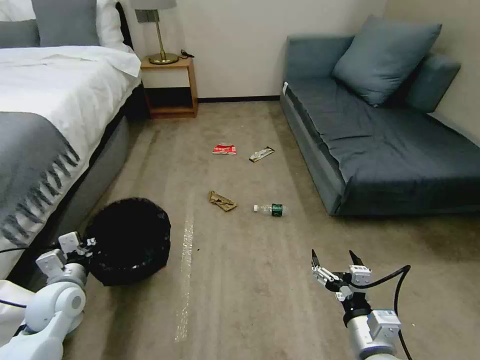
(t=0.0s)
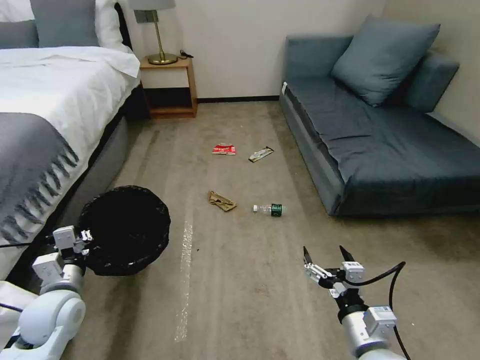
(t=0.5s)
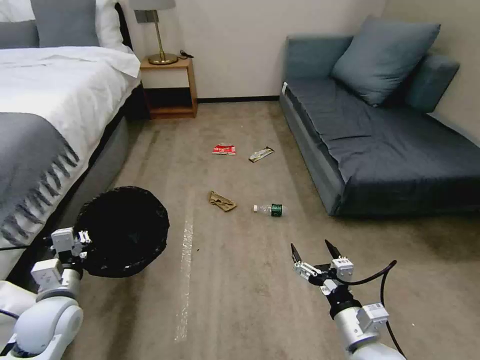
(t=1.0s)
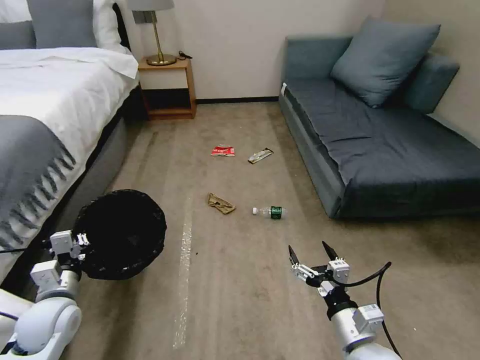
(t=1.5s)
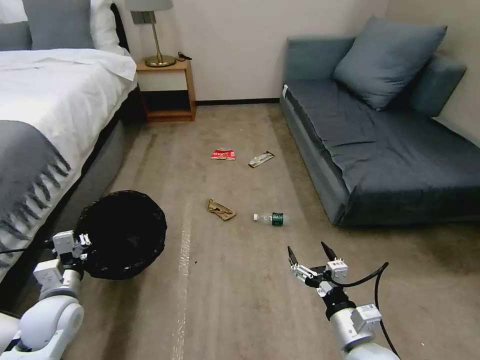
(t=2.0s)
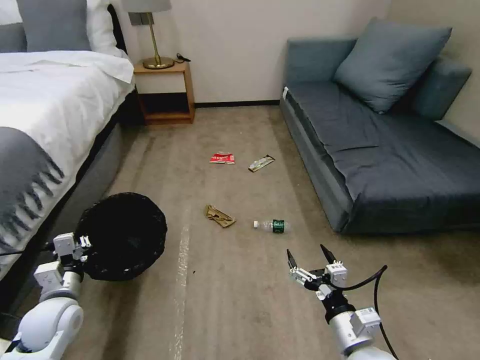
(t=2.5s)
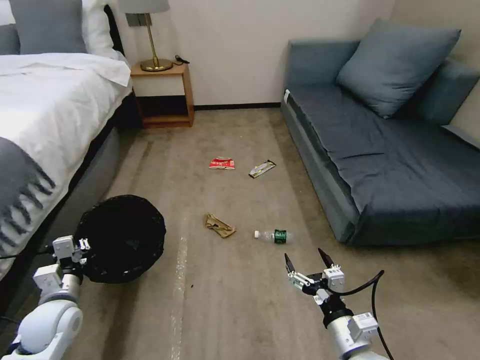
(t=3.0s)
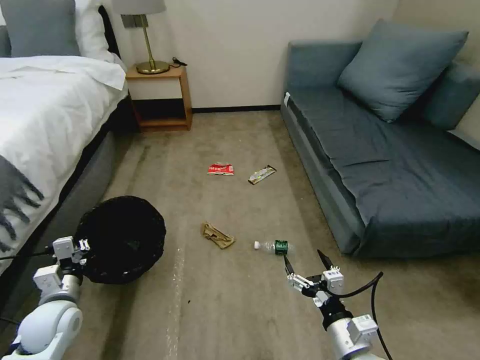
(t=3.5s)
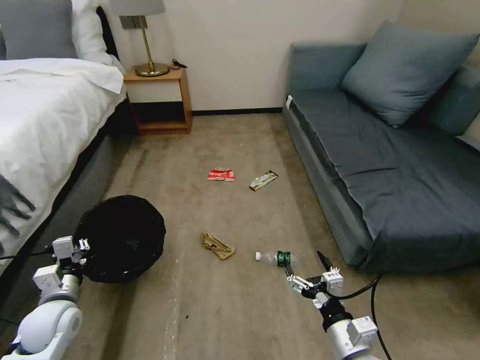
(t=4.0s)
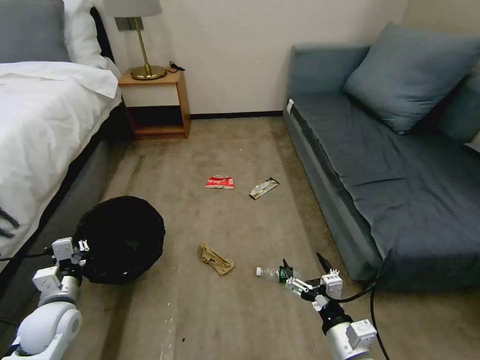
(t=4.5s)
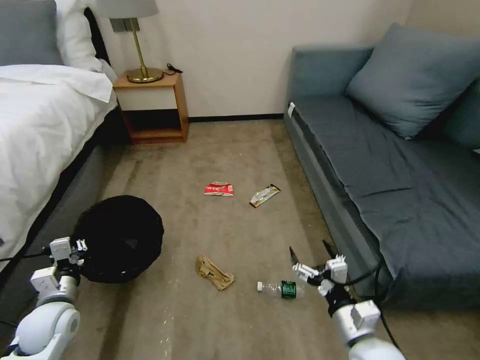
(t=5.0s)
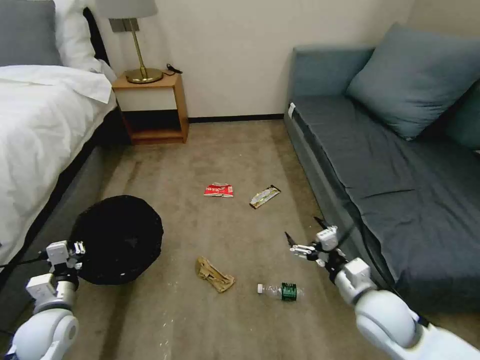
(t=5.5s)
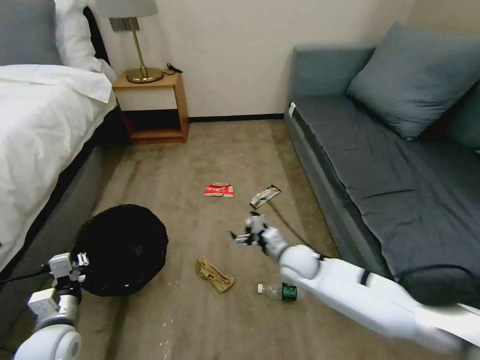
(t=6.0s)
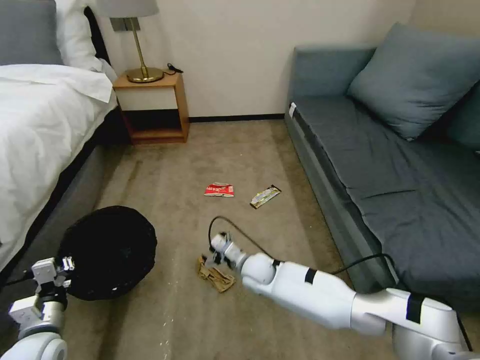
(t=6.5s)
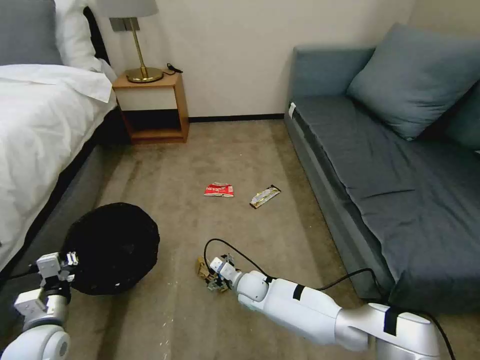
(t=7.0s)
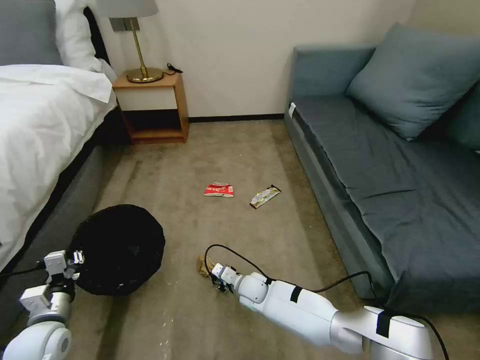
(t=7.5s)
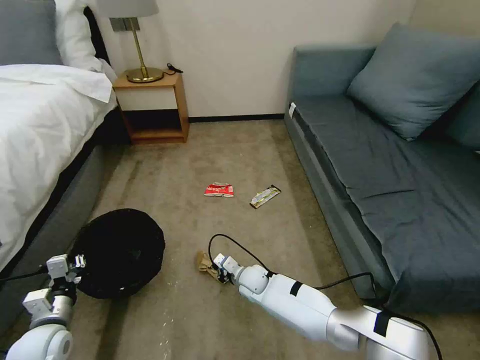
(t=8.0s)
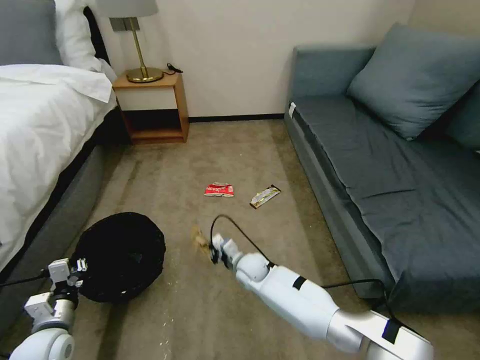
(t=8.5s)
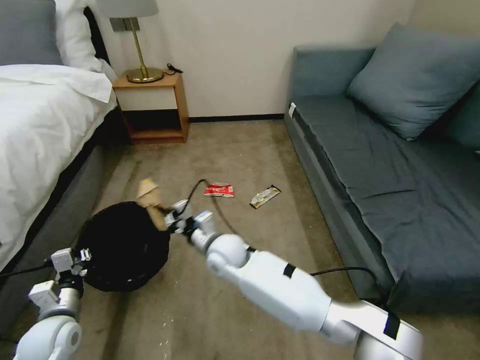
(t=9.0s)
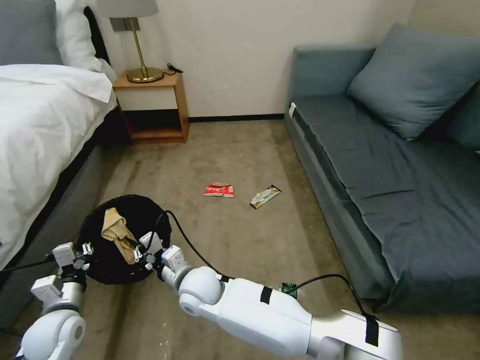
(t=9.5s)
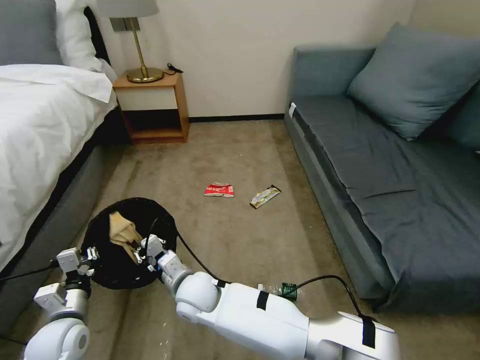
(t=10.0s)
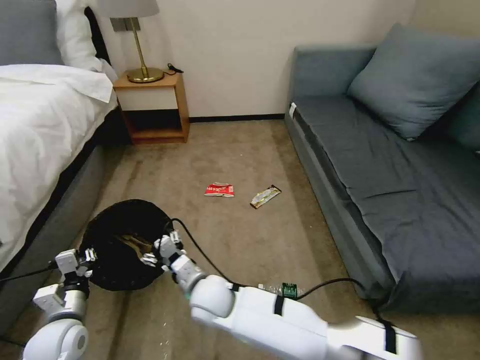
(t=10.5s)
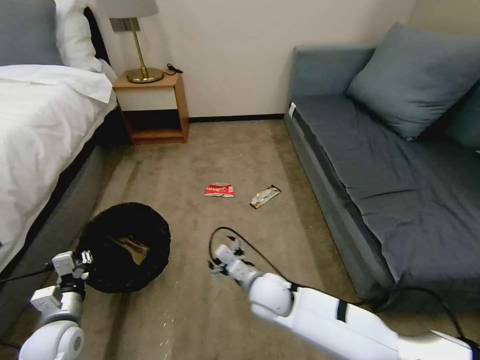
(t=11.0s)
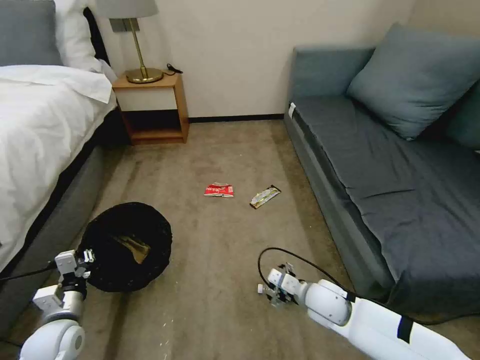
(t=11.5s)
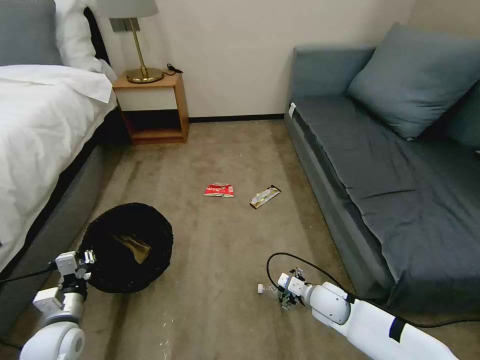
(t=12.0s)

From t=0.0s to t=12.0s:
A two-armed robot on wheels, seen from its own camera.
Task of the whole recording: Pick up the trash bin, then pick up the garbage on the floor and place it into the trash bin.
From t=4.0s to t=6.0s: The right gripper moves forward, approximately 25 cm.
From t=6.0s to t=8.0s: The right gripper shifts roughly 15 cm downward and to the left, and closes its fingers.
From t=8.0s to t=10.0s: The left gripper changes place by some 5 cm; the right gripper heads to the left, upward and backward, covering roughly 20 cm.
From t=10.0s to t=12.0s: The right gripper shifts approximately 35 cm to the right, and opens.

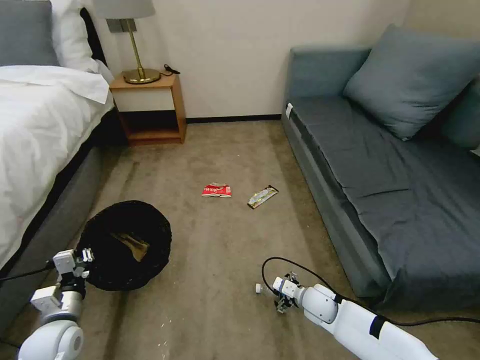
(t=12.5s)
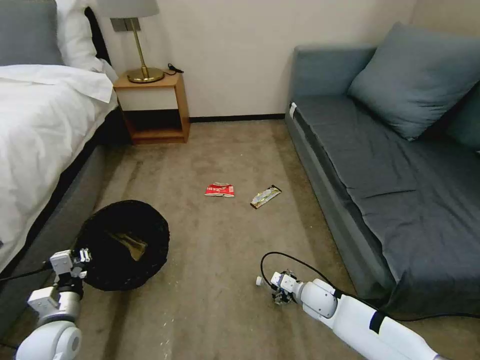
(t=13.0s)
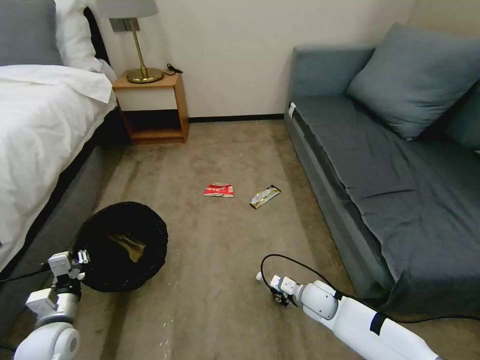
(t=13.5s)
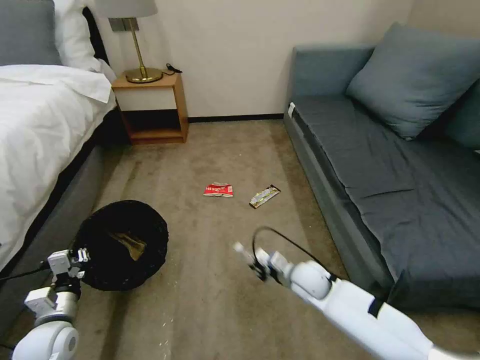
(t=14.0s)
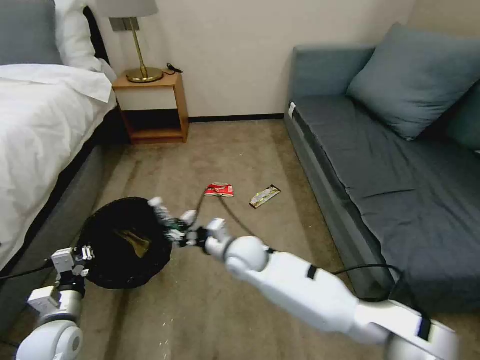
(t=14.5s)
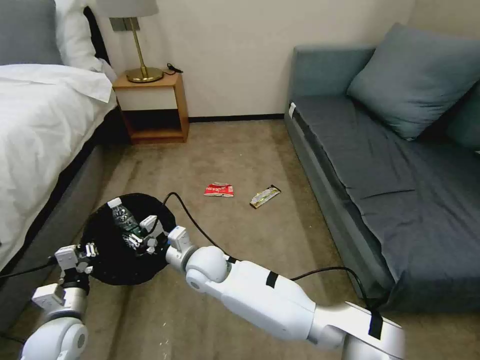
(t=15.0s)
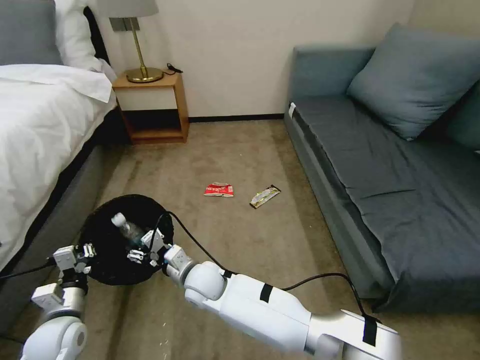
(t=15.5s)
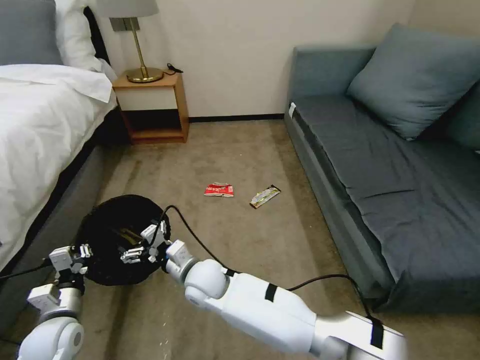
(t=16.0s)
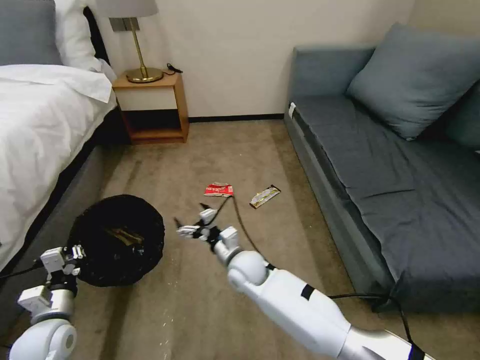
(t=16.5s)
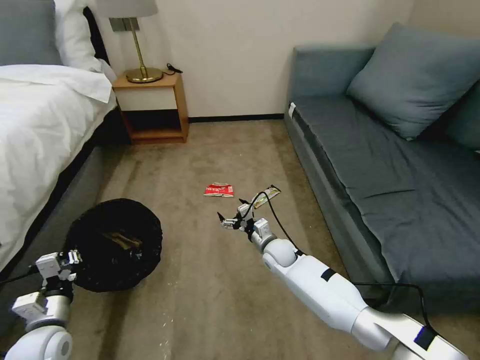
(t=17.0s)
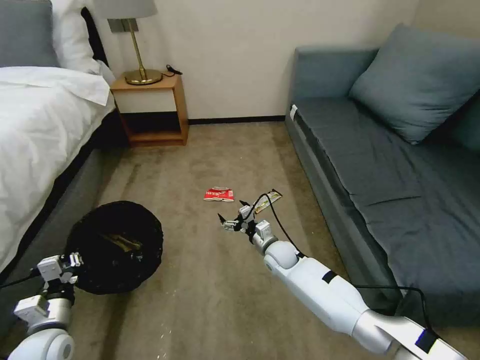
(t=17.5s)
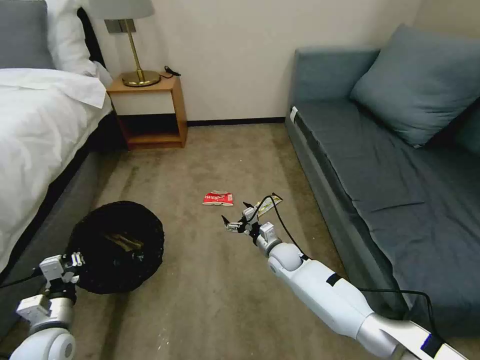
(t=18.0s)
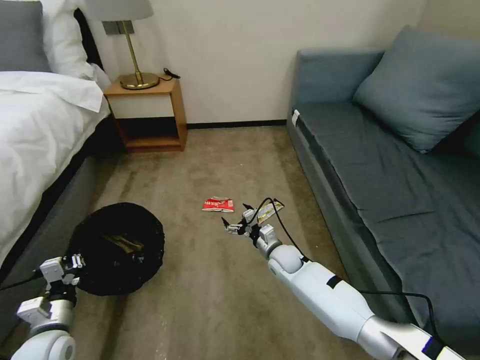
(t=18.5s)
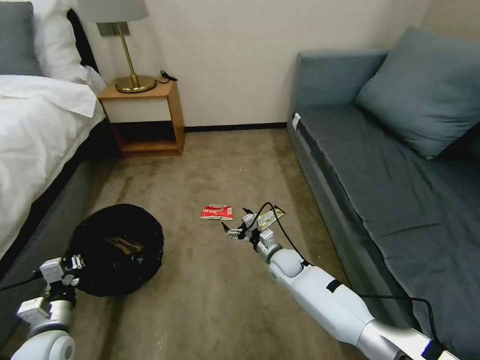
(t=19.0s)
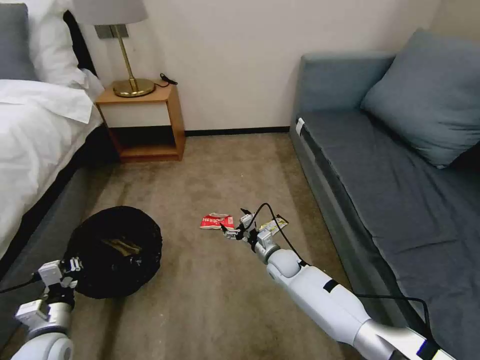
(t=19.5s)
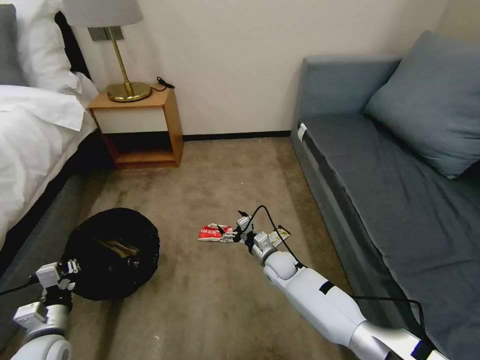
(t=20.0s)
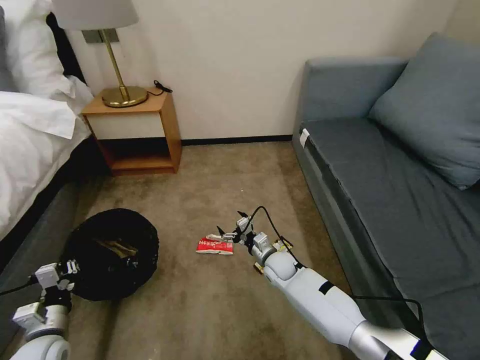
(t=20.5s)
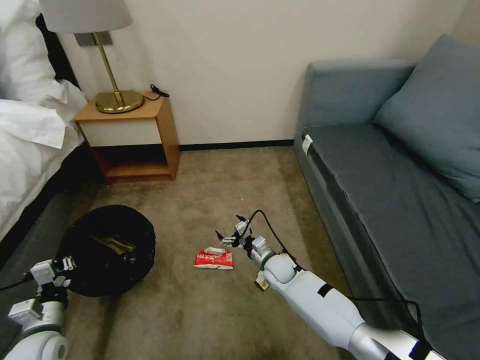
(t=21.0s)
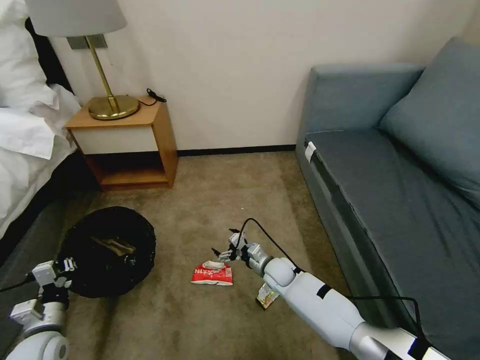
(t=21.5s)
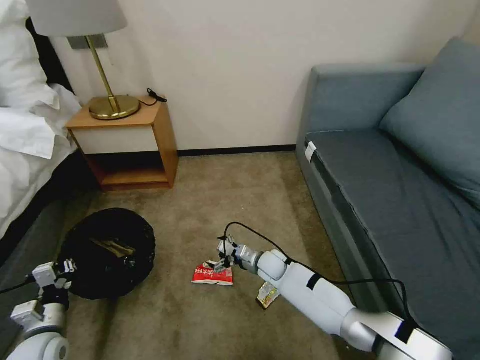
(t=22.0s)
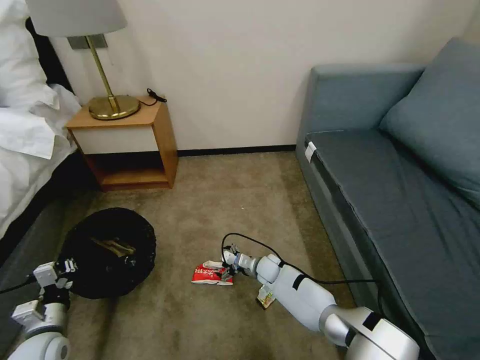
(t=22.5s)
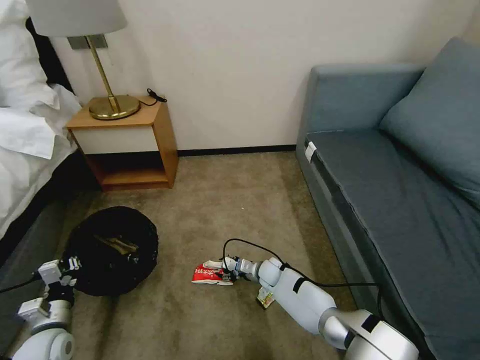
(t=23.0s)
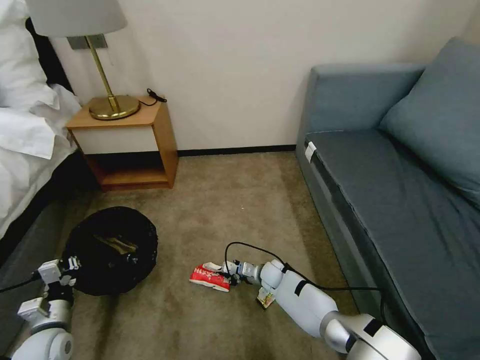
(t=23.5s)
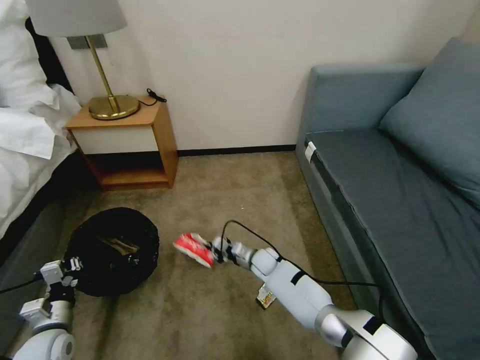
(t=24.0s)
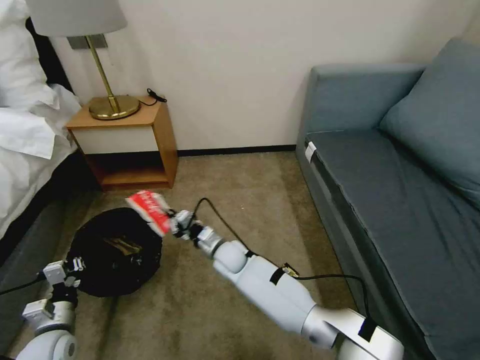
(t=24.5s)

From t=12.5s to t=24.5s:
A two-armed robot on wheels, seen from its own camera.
Task of the whole recording: Pick up the trash bin, then pick up the garbage on the floor and place it into the trash bin.
From t=12.5s to t=14.5s: The right gripper travels to the left and upward by some 25 cm, and closes up.
From t=14.5s to t=16.5s: The right gripper goes approximately 5 cm downward, goes to the left and returns, approximately 10 cm each way, and opens up.
From t=16.5s to t=18.5s: The right gripper goes approximately 15 cm to the right, downward and forward.
From t=20.5s to t=22.5s: The right gripper moves downward, about 5 cm.
From t=22.5s to t=24.5s: The right gripper moves to the left and upward, roughly 15 cm, and closes.

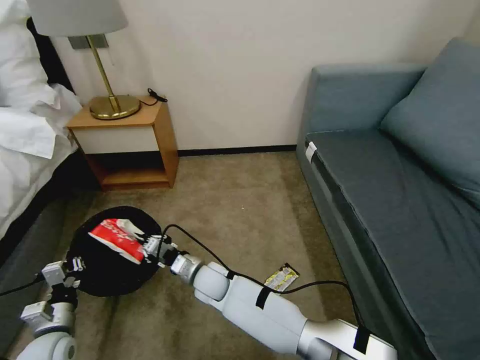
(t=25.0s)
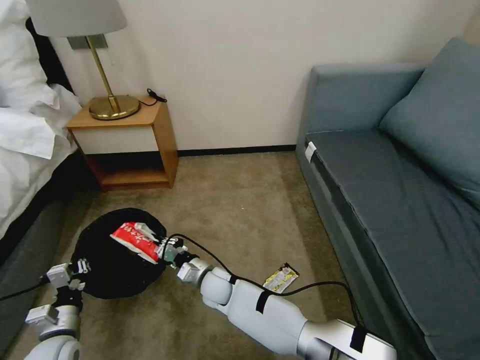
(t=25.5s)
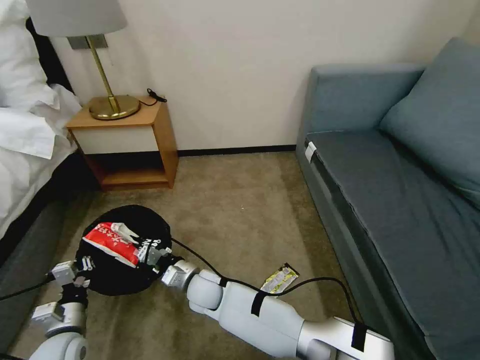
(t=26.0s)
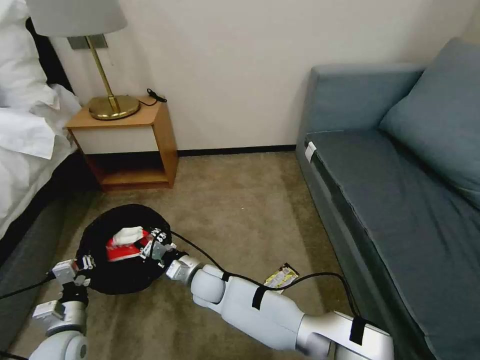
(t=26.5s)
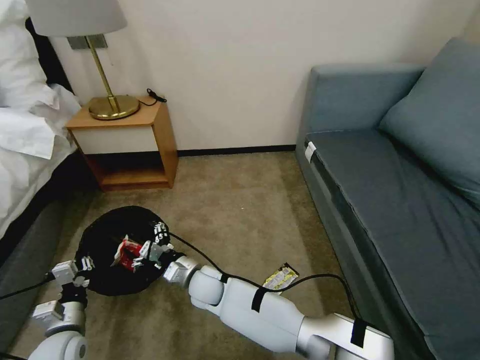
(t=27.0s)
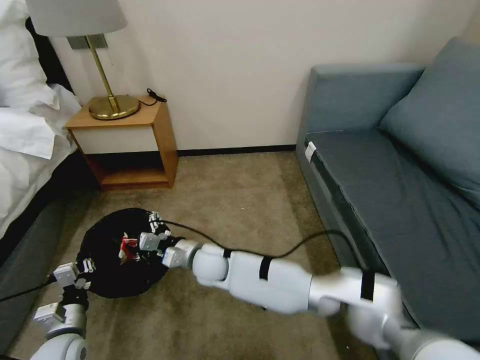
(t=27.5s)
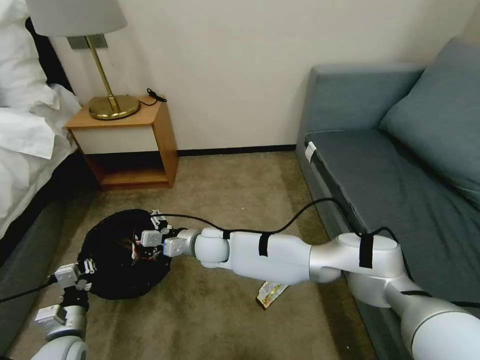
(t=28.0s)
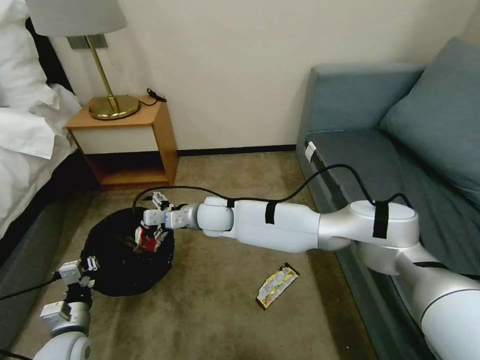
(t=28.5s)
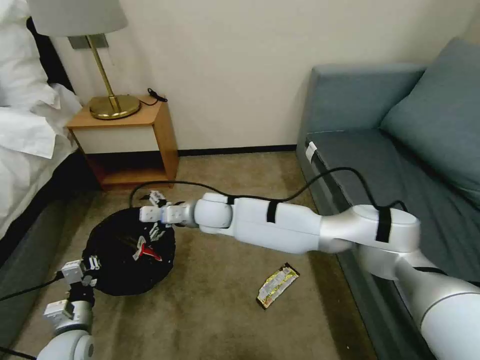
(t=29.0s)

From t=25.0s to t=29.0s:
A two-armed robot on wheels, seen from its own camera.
Task of the whole recording: Pick up the trash bin, then pick up the garbage on the floor and place it into the trash bin.
From t=25.0s to t=27.0s: The right gripper opens up.
From t=27.0s to t=29.0s: The right gripper shifts approximately 20 cm upward and forward.
